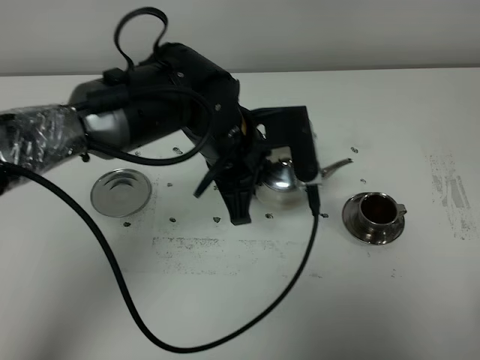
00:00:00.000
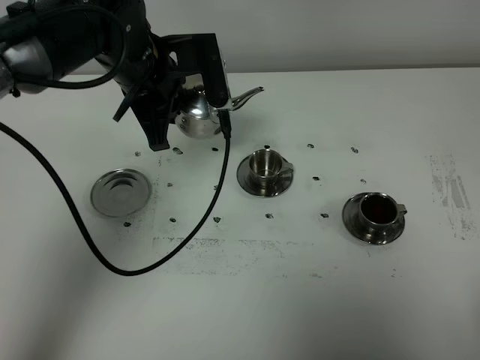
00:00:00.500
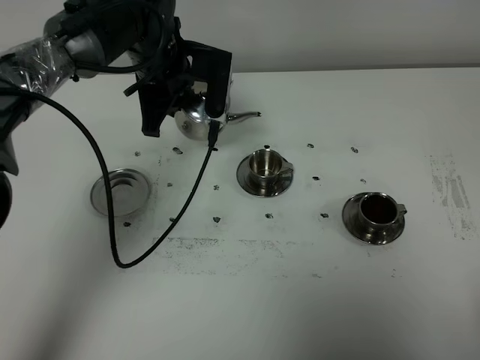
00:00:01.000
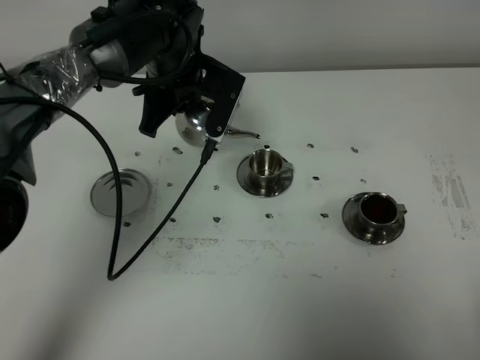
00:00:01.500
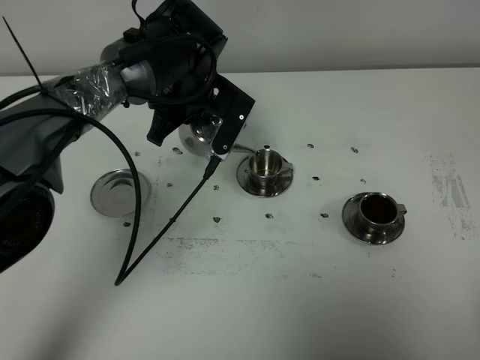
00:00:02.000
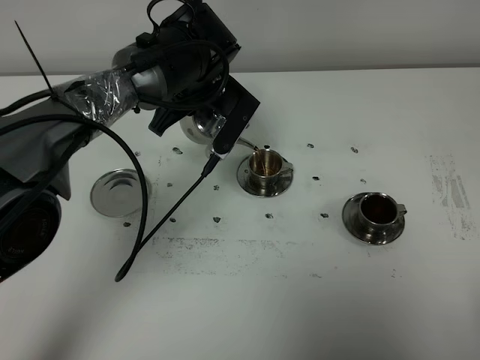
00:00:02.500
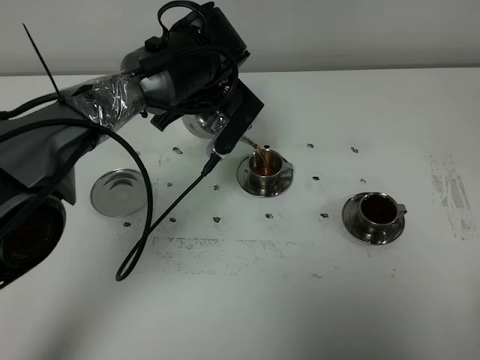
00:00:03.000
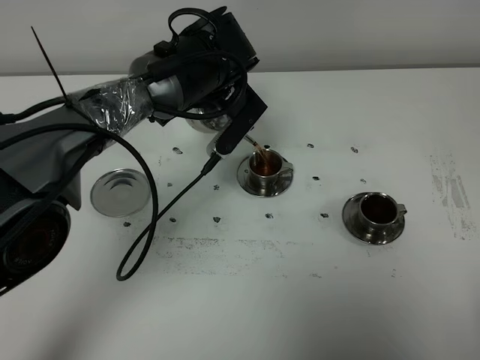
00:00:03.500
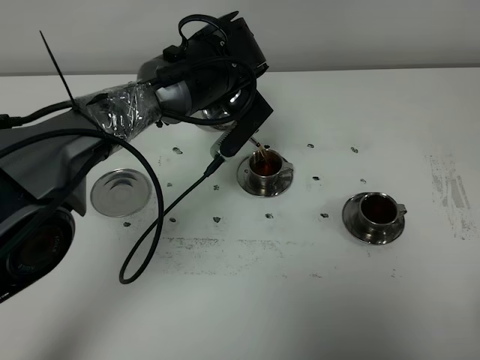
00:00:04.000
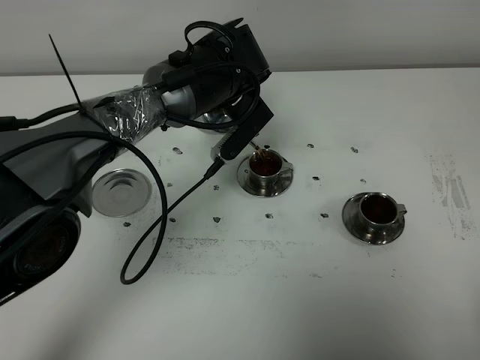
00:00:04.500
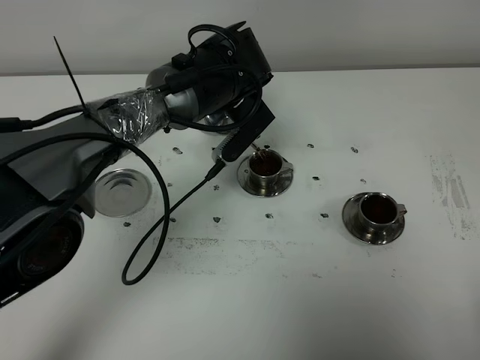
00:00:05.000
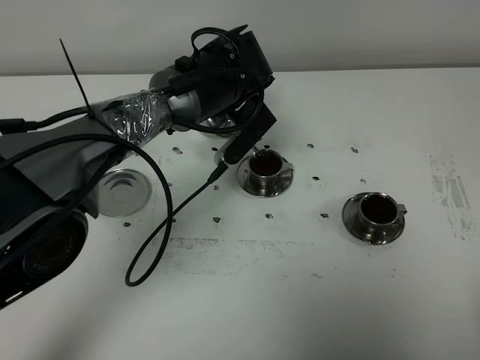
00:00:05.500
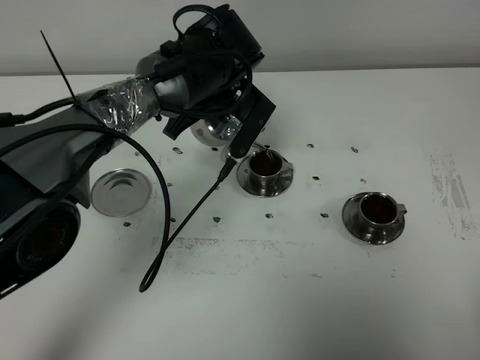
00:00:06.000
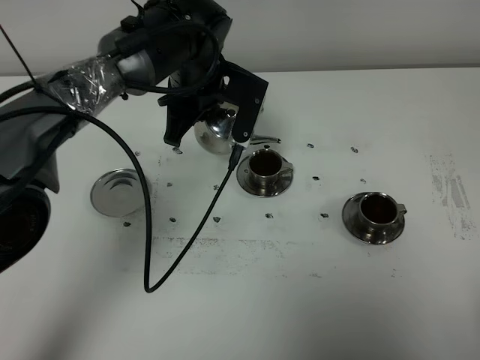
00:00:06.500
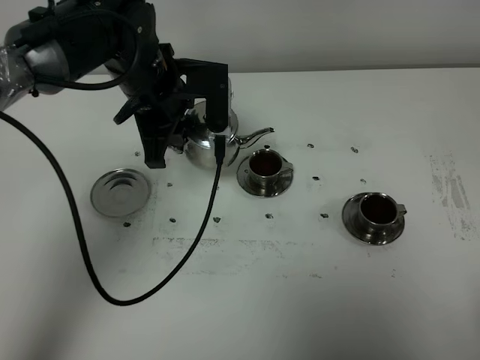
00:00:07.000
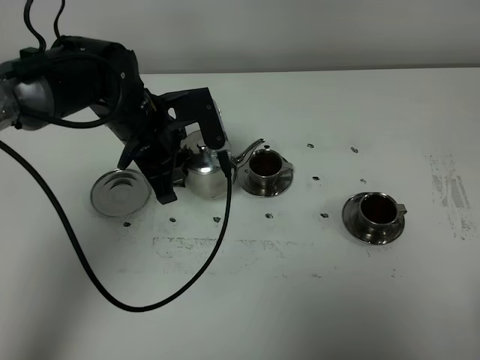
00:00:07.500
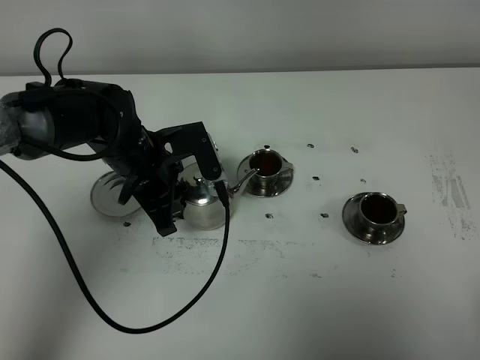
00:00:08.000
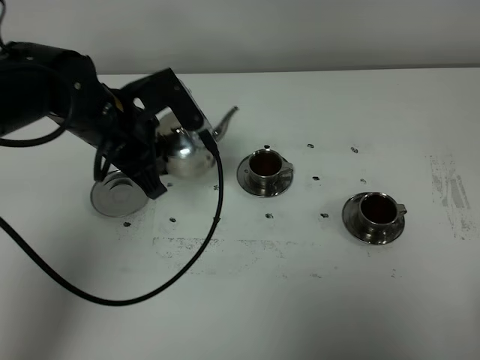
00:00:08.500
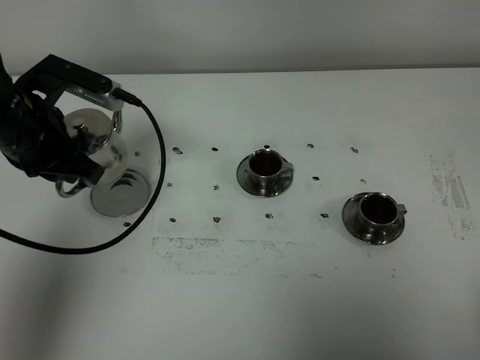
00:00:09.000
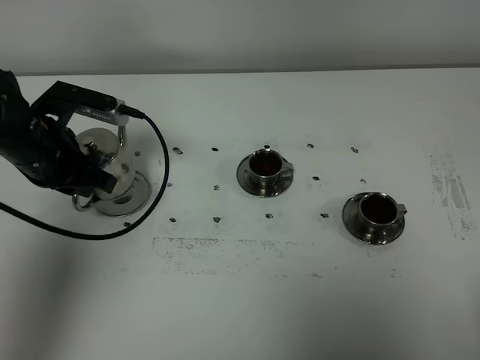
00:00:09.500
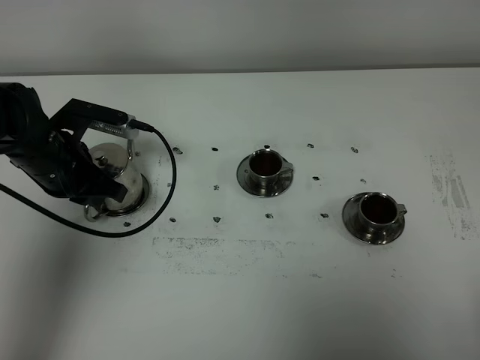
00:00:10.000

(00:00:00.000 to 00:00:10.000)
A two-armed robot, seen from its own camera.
Task of the whole recording: grasp the stainless steel teapot and pour the tea into the two stainless steel teacups one by one, put the stainless steel teapot back in its original place.
Step, 00:00:00.000 - 00:00:06.000: Pour tea into the teacup with the left gripper.
00:00:00.000 - 00:00:02.000: The left gripper shifts some 10 cm forward.
00:00:02.000 - 00:00:04.000: The grippers move only a little.
00:00:04.000 - 00:00:06.000: The grippers stay close to where they were, moving slightly.
00:00:06.000 - 00:00:08.000: The left gripper moves to the left, backward and downward, some 15 cm.
00:00:08.000 - 00:00:10.000: The left gripper is displaced to the left by some 10 cm.

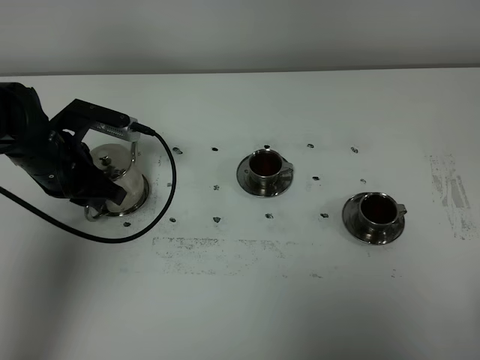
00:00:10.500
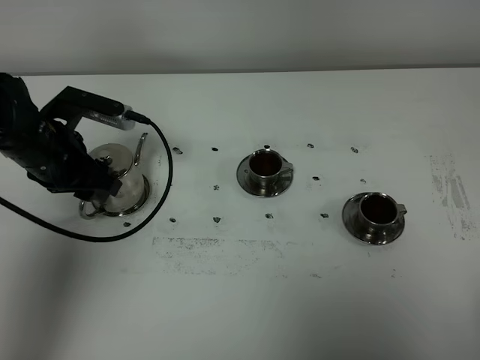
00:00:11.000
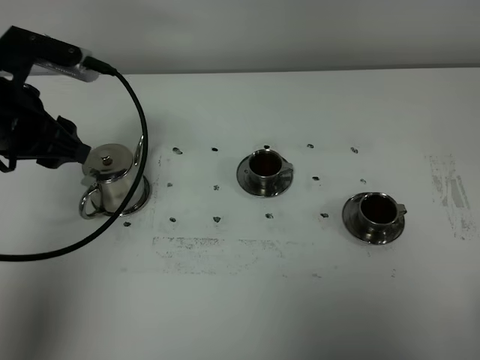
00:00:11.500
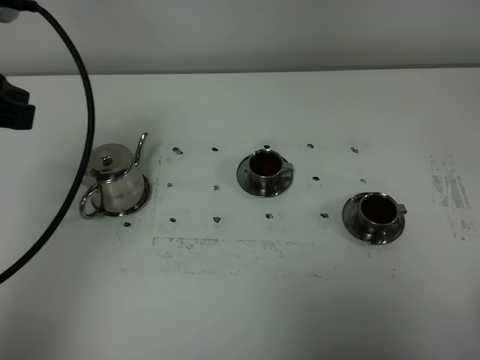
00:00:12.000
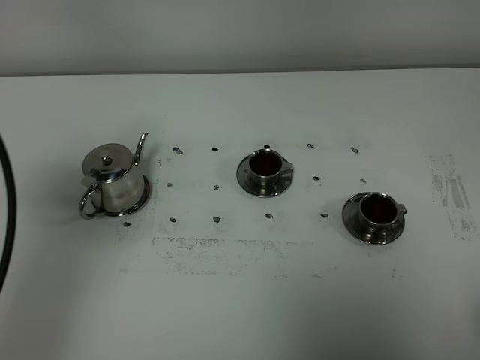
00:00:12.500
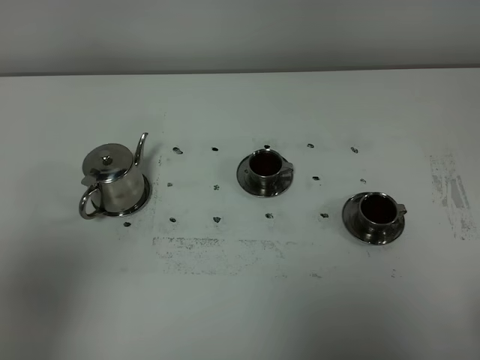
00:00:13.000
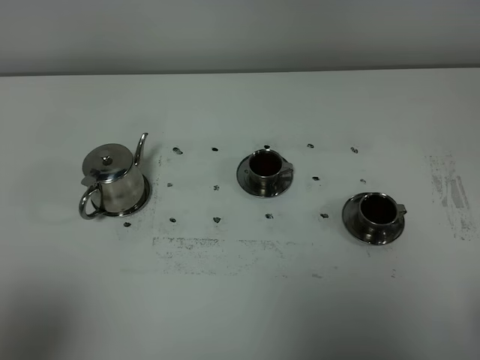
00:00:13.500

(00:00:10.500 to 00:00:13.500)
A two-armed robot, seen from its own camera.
Task of the whole recording: grasp the stainless steel teapot and pour the tea into the two stainless steel teacups one by one, put the stainless steel teapot back in its original place.
00:00:10.500 - 00:00:12.000: The left gripper shifts approximately 25 cm upward and backward.
00:00:12.000 - 00:00:13.500: The left gripper is displaced backward by some 30 cm, and closes.

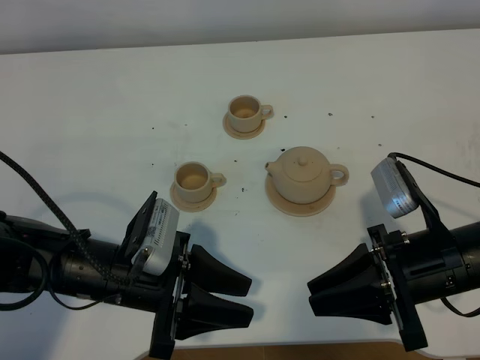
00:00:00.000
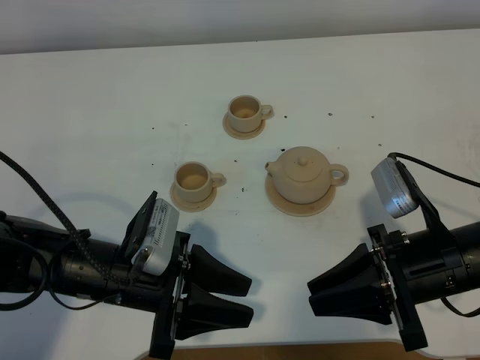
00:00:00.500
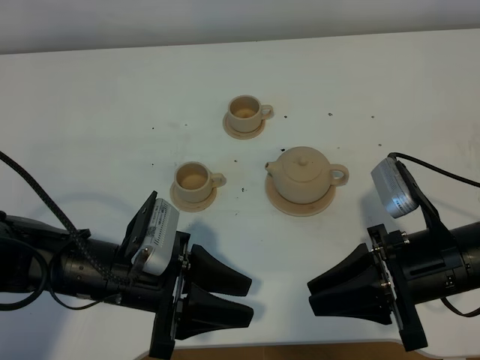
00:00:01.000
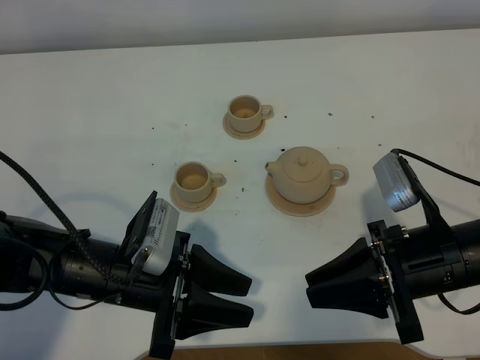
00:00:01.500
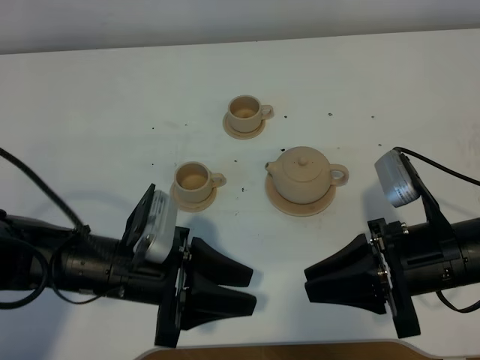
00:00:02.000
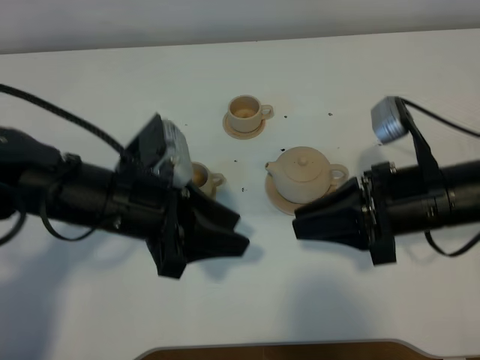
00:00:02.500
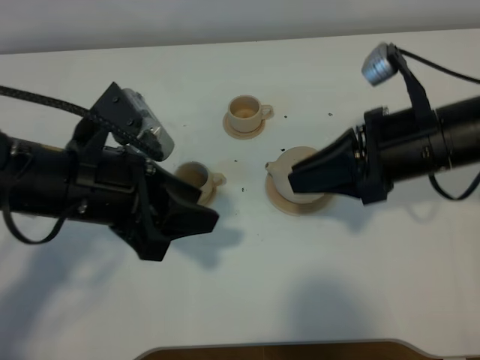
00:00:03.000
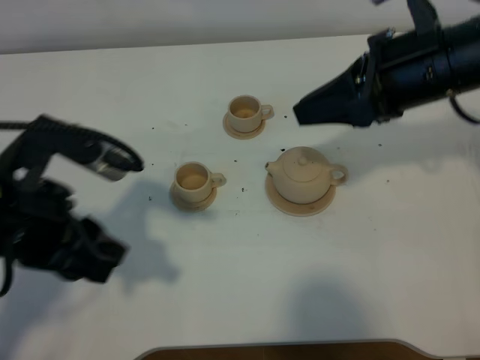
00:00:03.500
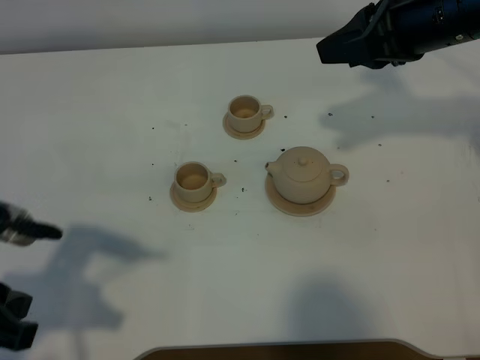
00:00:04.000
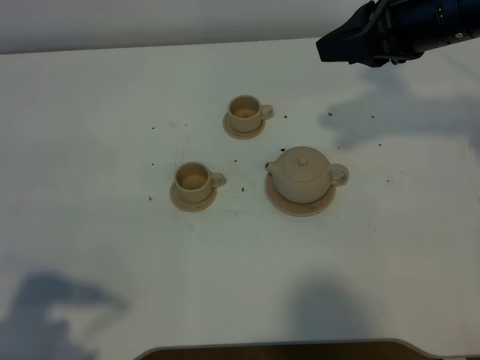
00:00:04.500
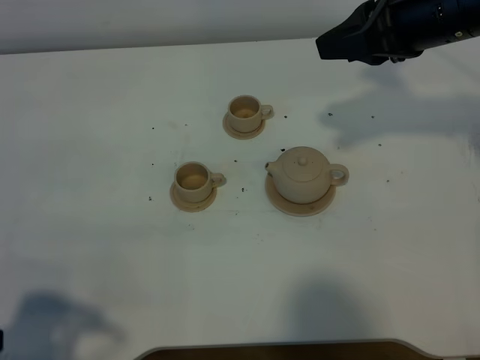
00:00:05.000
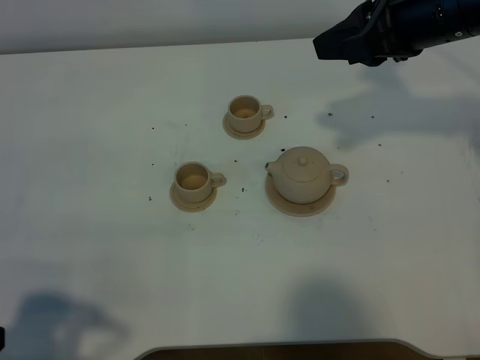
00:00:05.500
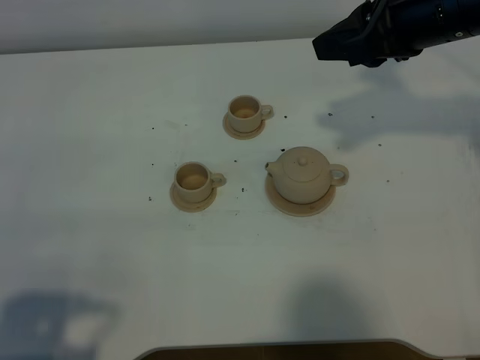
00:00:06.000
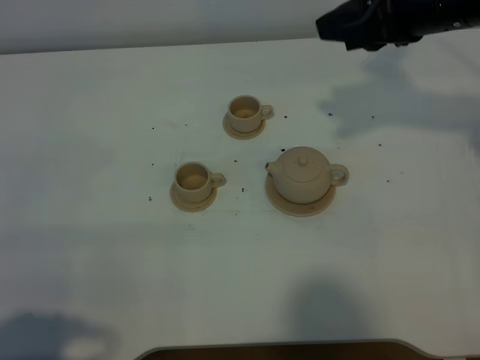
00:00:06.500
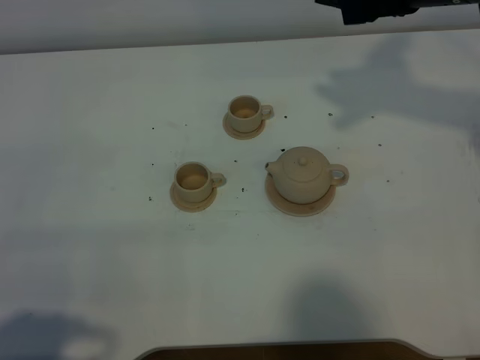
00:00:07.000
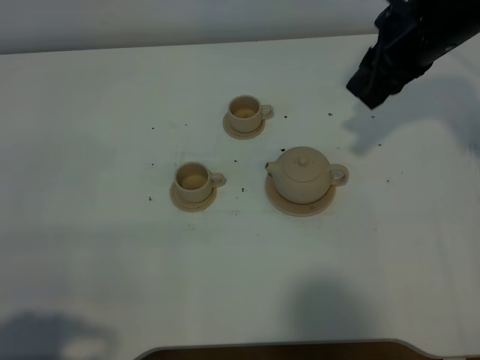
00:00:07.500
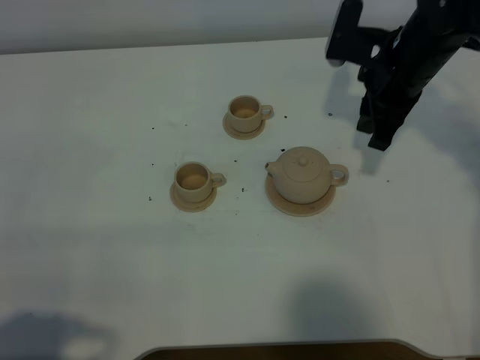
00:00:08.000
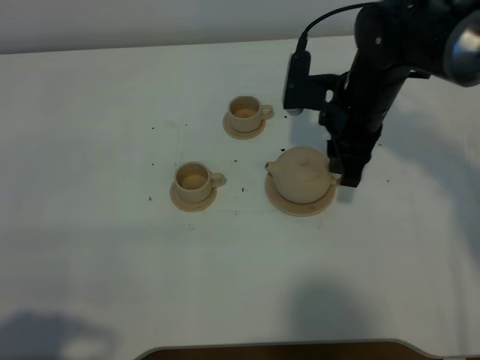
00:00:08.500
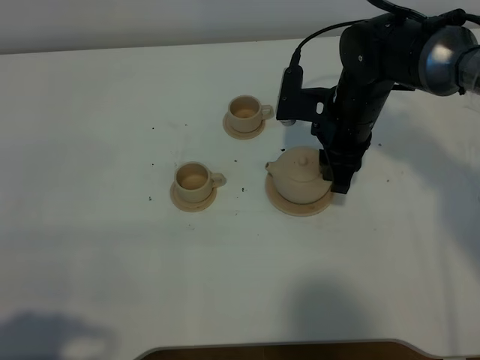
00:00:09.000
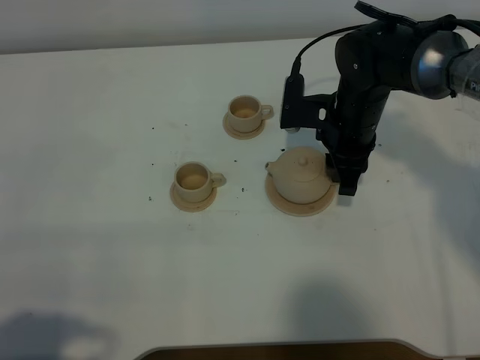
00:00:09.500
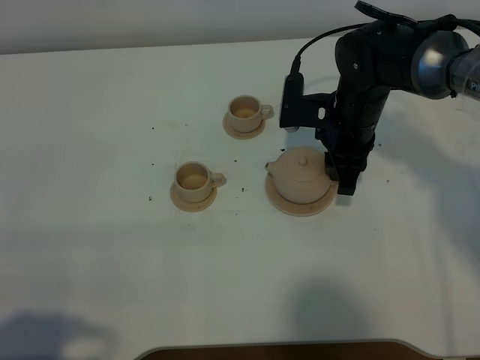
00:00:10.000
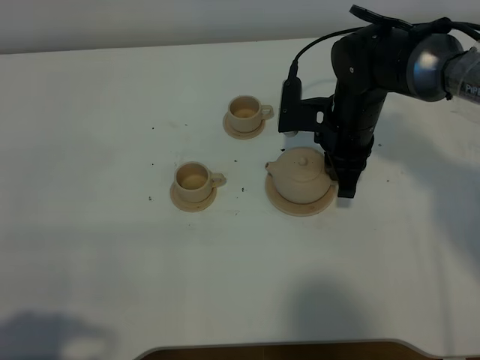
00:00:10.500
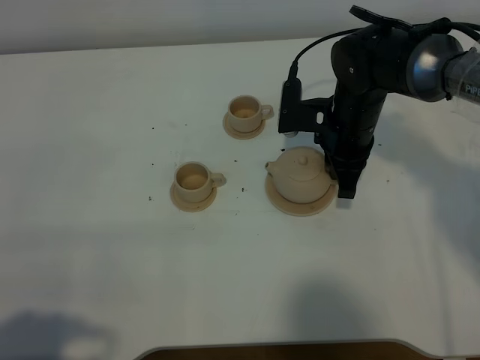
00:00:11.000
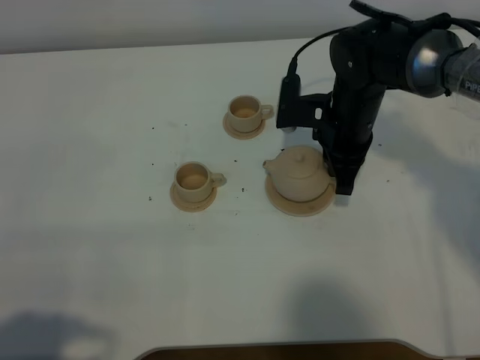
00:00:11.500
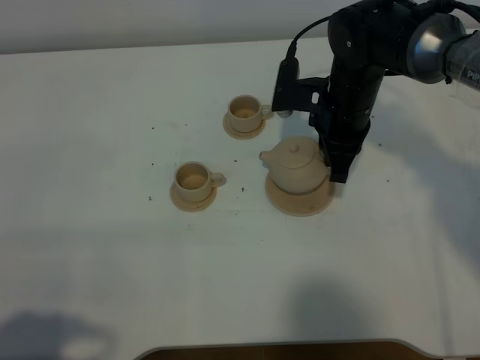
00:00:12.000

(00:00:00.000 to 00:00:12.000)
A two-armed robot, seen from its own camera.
Task of the whole recording: grasp the brown teapot and pour the tea into the two brown teacups one by one, put the brown teapot back in its original place.
Step, 00:00:00.000 - 00:00:11.500: Pick up the teapot with the right gripper.
00:00:00.000 - 00:00:02.000: The two grippers keep their place.
00:00:02.000 - 00:00:04.000: The right gripper goes approximately 20 cm upward and forward, while the left gripper heads upward, to the left and backward, covering some 20 cm, and closes.
00:00:04.000 - 00:00:06.000: The right gripper opens its fingers; the left gripper travels backward by about 10 cm.
00:00:06.000 - 00:00:08.000: The right gripper shifts roughly 15 cm downward and forward.
00:00:08.000 - 00:00:10.000: The right gripper goes about 5 cm downward.
00:00:10.000 - 00:00:12.000: The right gripper closes up.
